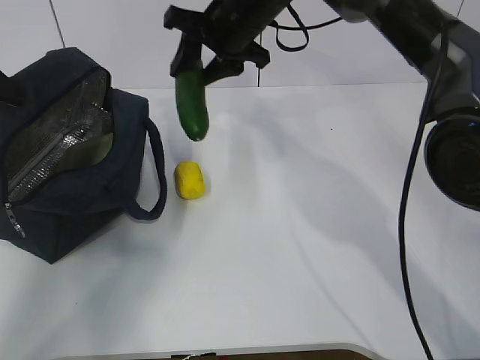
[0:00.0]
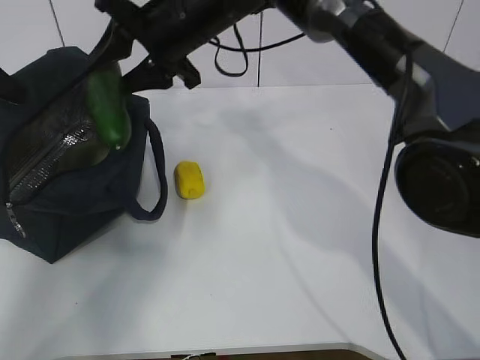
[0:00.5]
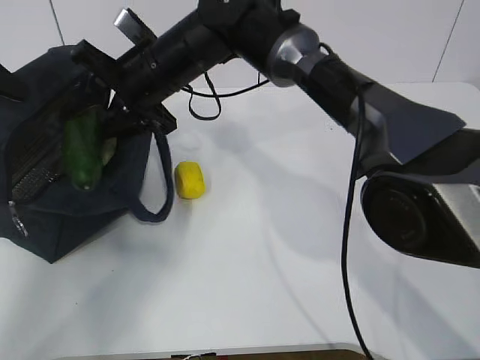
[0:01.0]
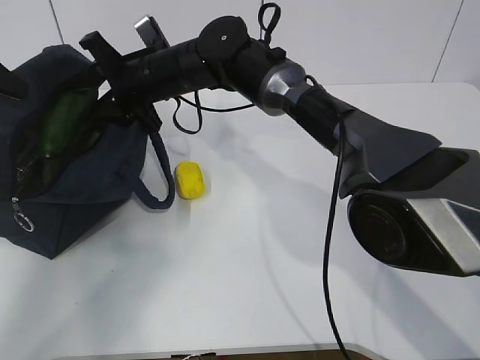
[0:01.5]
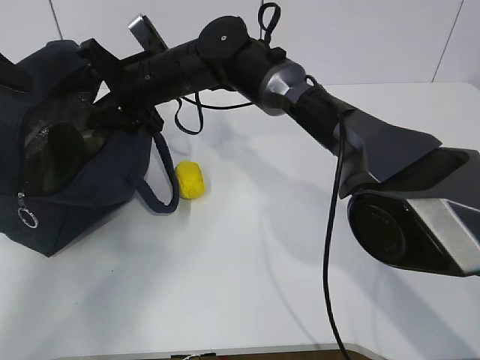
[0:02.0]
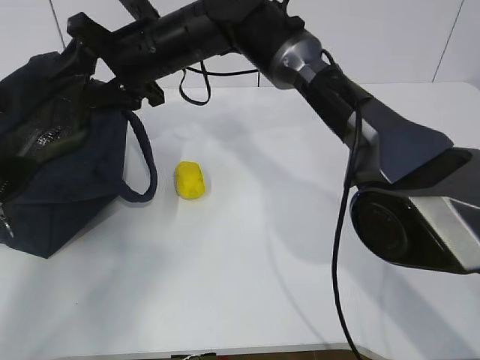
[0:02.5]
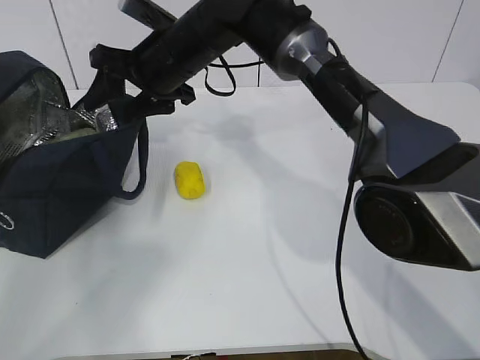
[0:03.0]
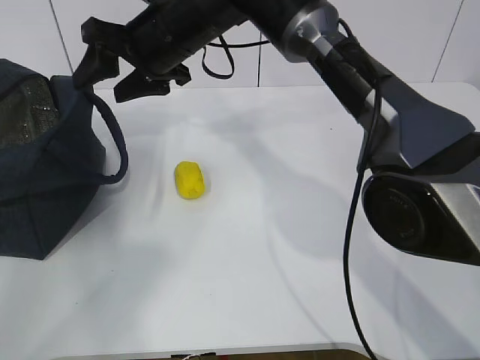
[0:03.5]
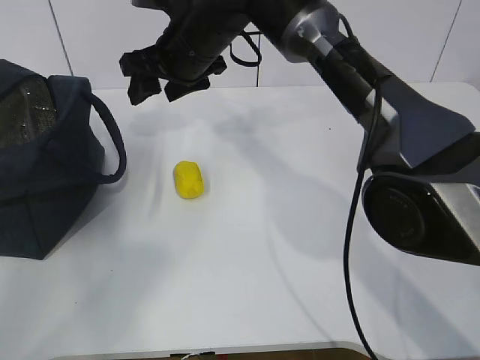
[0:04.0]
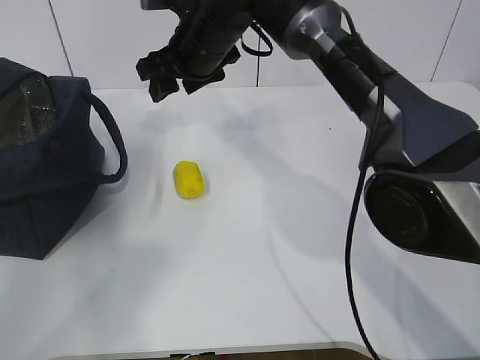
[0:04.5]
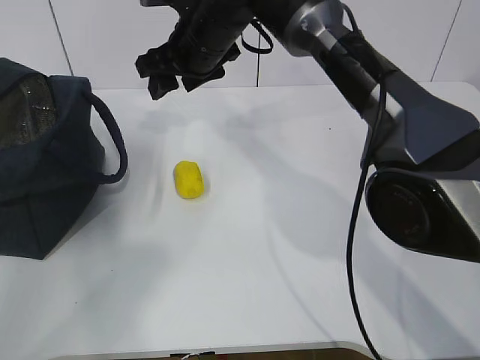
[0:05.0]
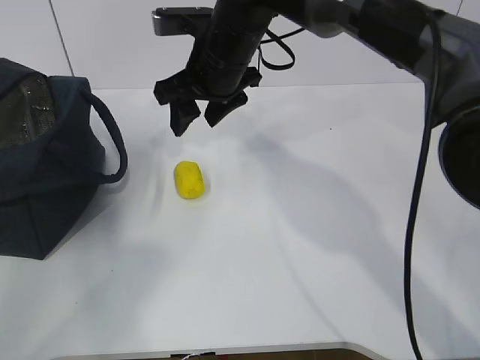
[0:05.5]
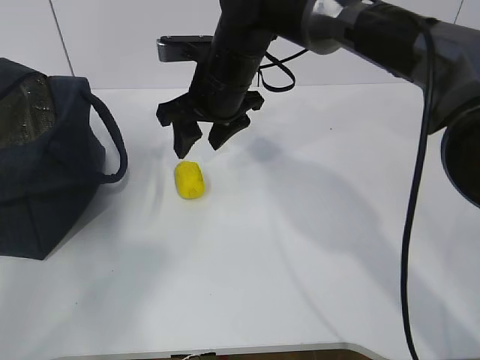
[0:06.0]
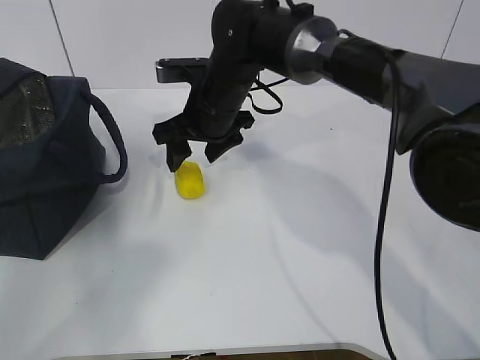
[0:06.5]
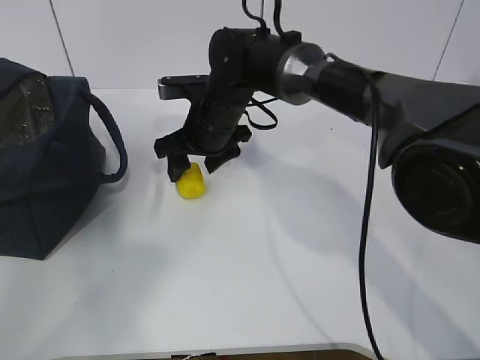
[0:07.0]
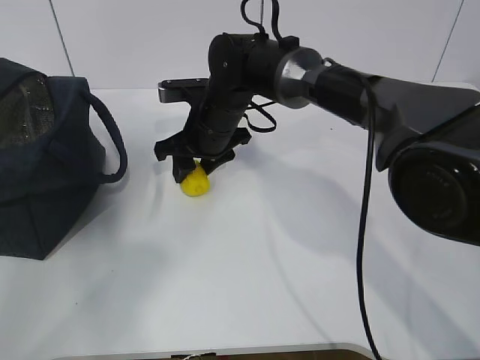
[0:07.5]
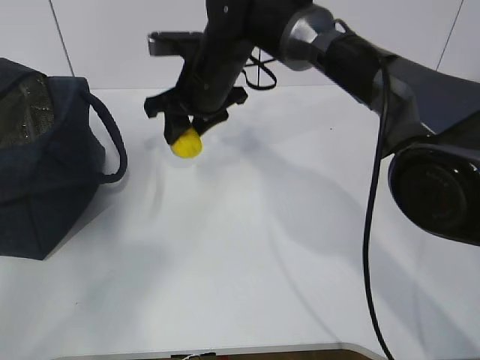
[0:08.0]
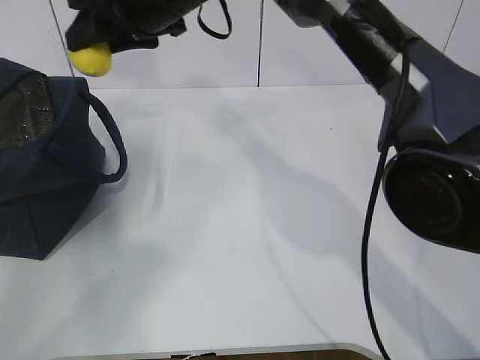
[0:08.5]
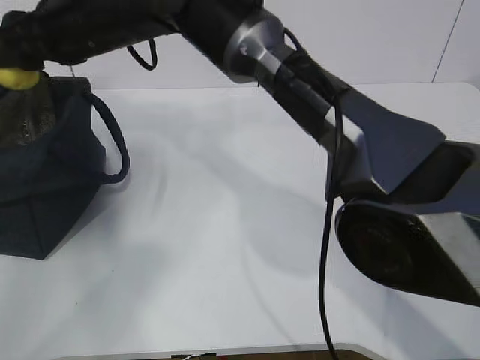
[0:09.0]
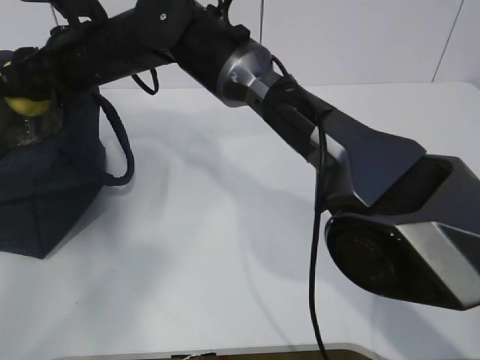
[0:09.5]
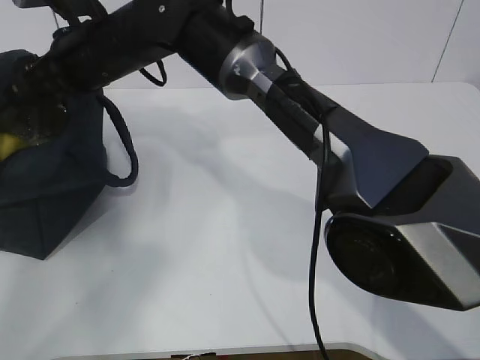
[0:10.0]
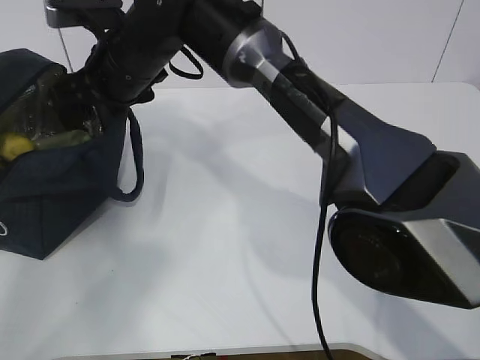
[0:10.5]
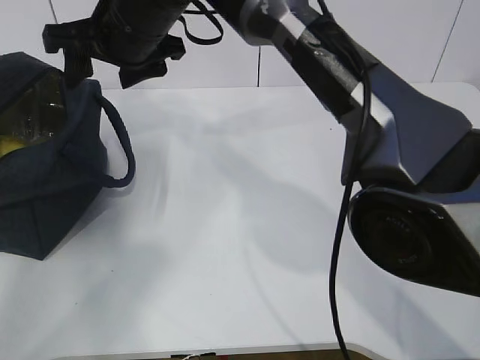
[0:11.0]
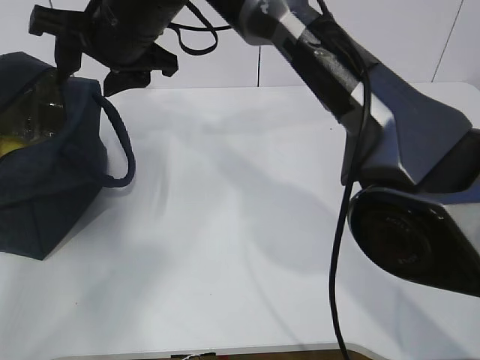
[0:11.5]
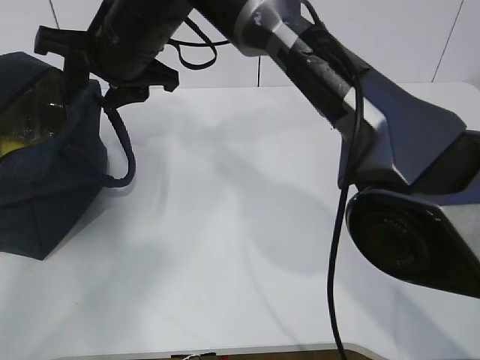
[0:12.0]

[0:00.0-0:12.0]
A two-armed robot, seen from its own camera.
Step, 0.0 to 3.0 s: Grab the lemon with your right hand.
Step, 5.5 to 7.0 s: Grab the lunch bag with your right hand.
Step, 7.5 to 10.5 s: Move the lunch bag to the right.
0.0 to 2.0 s: The right gripper heads to the left and downward, covering some 15 cm.
2.0 to 4.0 s: The left gripper heads to the left, covering approximately 10 cm; the right gripper moves to the right, some 5 cm.
8.0 to 10.0 s: The right gripper moves to the left, approximately 10 cm, and opens.

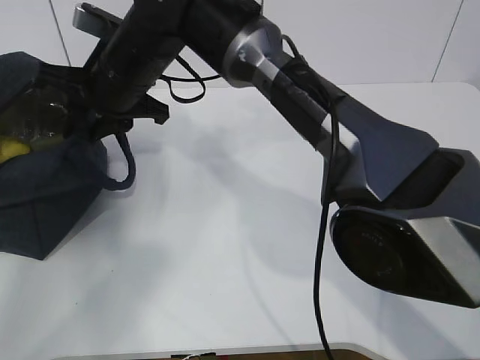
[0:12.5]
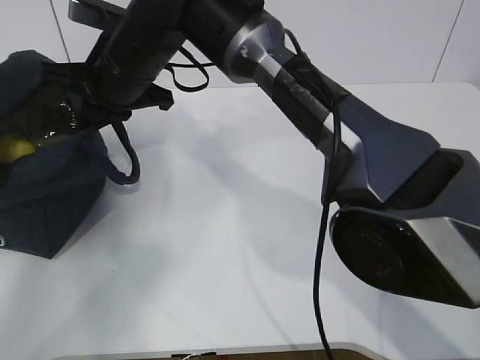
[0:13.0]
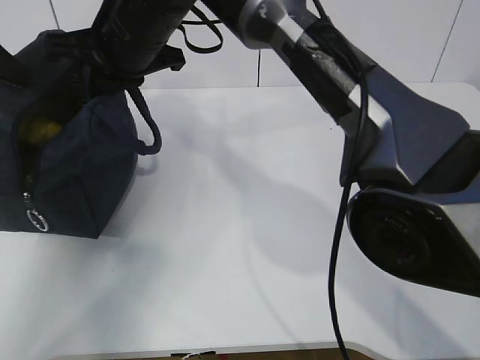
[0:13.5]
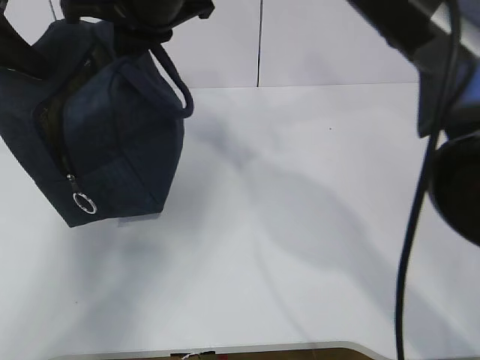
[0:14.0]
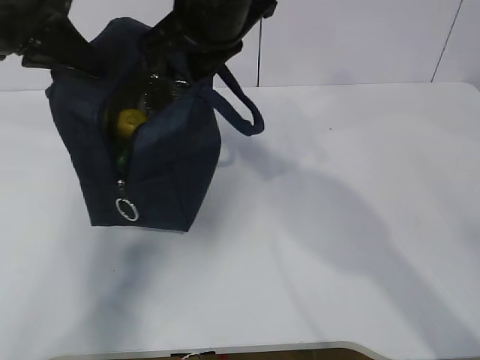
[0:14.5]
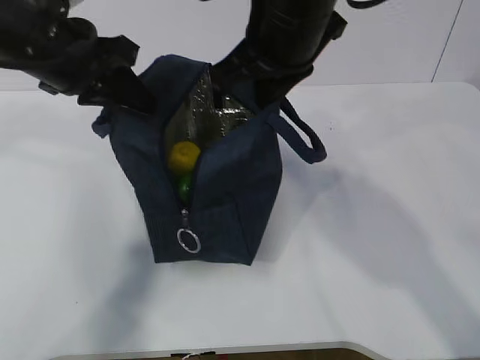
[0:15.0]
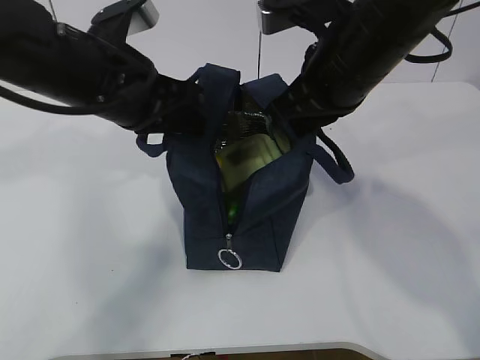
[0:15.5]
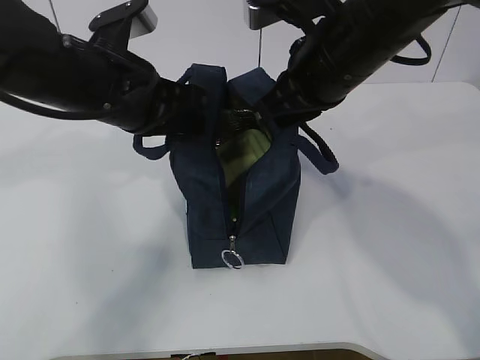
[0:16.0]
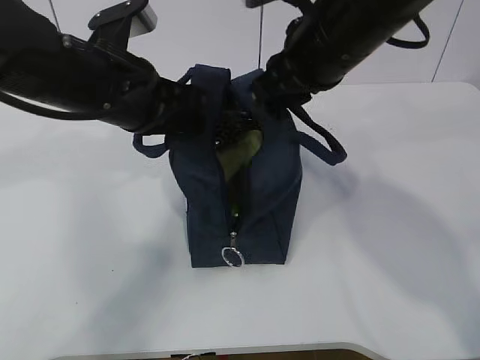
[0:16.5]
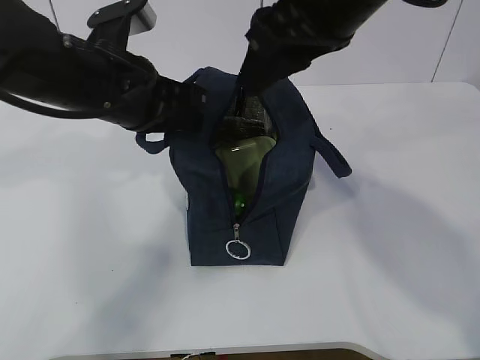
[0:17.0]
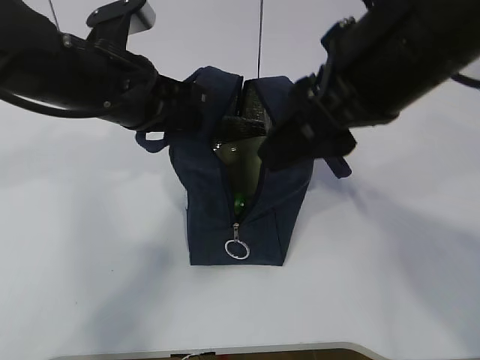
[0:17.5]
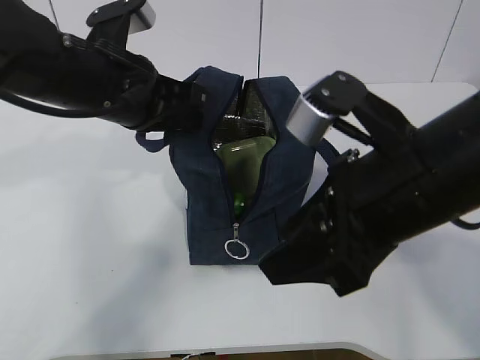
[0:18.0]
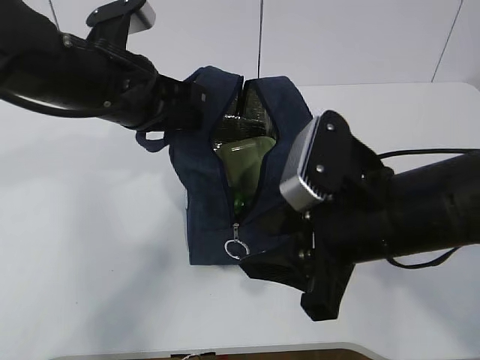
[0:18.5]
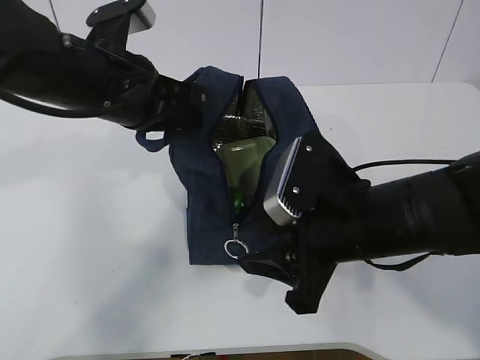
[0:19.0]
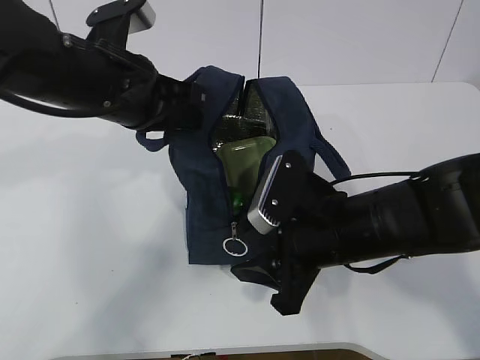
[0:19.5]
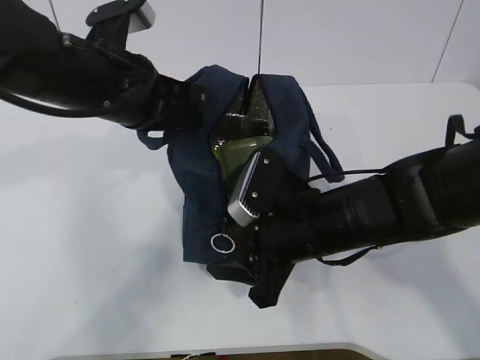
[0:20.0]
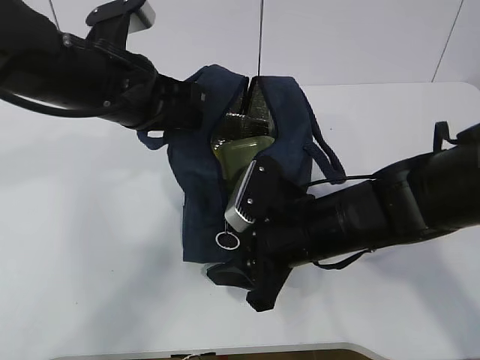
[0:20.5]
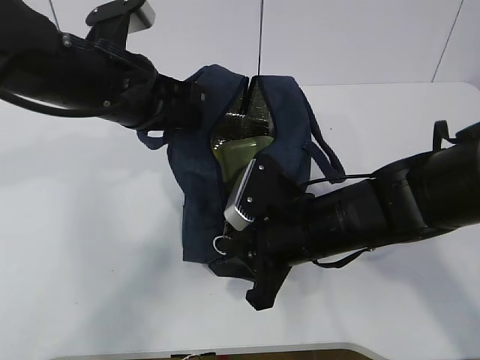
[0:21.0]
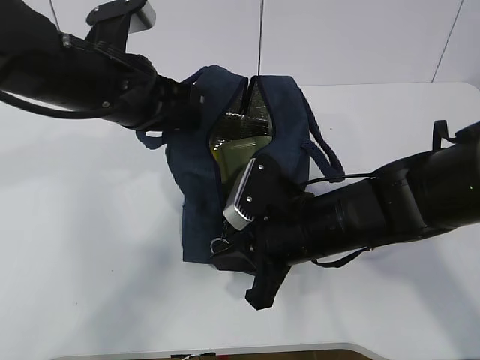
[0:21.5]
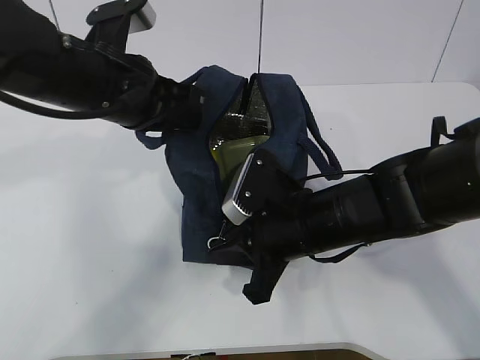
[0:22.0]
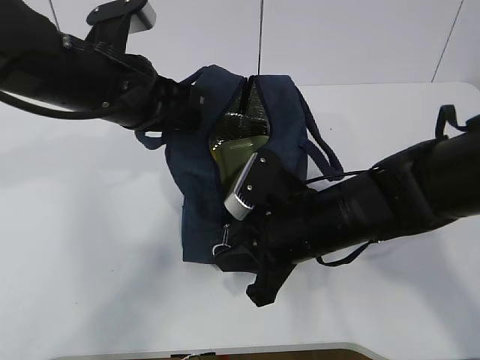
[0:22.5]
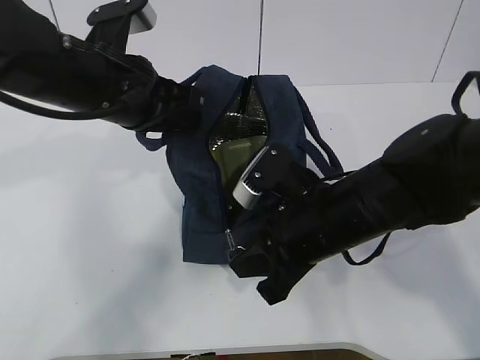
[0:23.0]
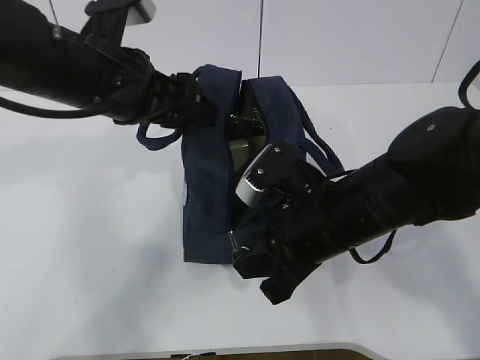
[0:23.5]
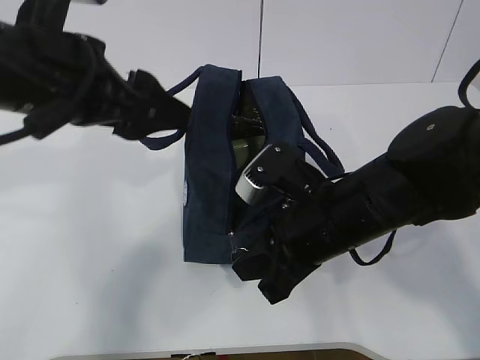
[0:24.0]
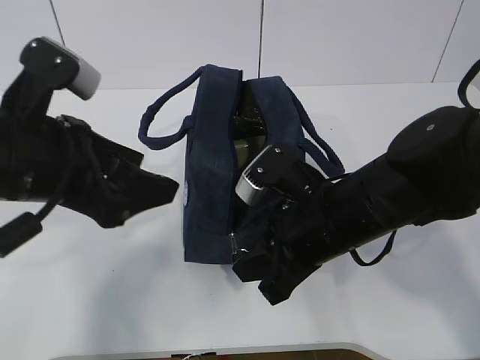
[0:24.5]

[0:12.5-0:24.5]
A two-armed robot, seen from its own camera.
Step, 12.5 to 16.0 s: Move the lunch bag to the left.
12.5 to 14.5 s: The right gripper heads to the right and upward, covering about 15 cm, and closes up; the left gripper moves to the right, about 15 cm.
14.5 to 16.5 s: The left gripper shifts approximately 15 cm to the right and downward. The right gripper is displaced to the right by about 10 cm.
16.5 to 18.5 s: The right gripper goes approximately 15 cm backward and downward, and opens its fingers.
18.5 to 20.5 s: The right gripper heads downward and forward, covering approximately 10 cm.
20.5 to 22.5 s: The right gripper closes.
22.5 to 24.5 s: The left gripper travels backward by approximately 10 cm, and opens its fingers.

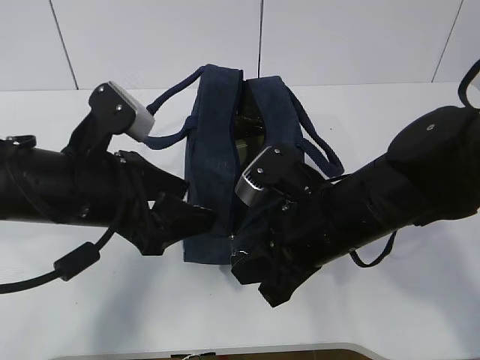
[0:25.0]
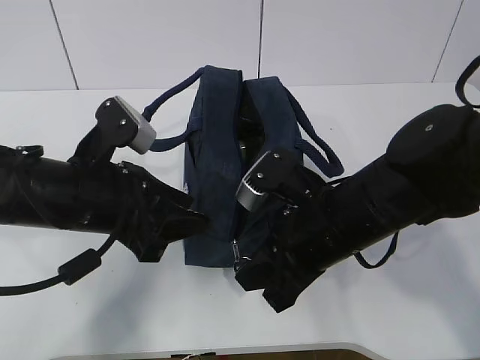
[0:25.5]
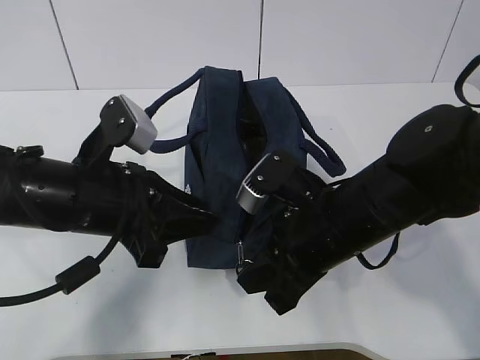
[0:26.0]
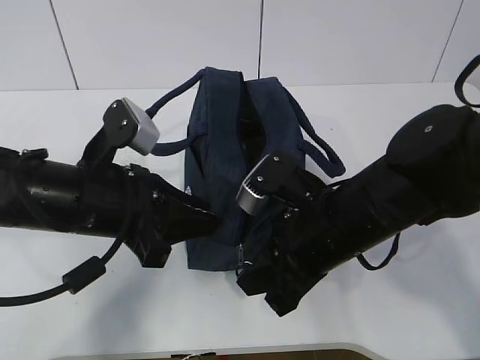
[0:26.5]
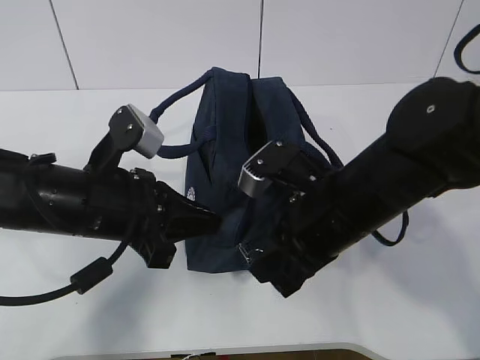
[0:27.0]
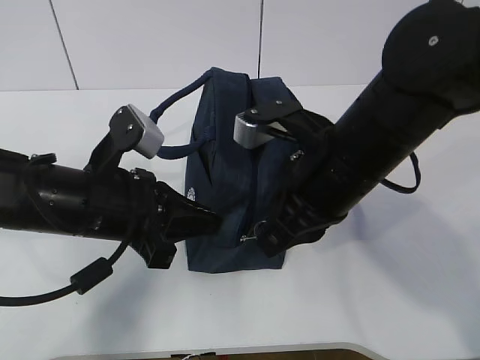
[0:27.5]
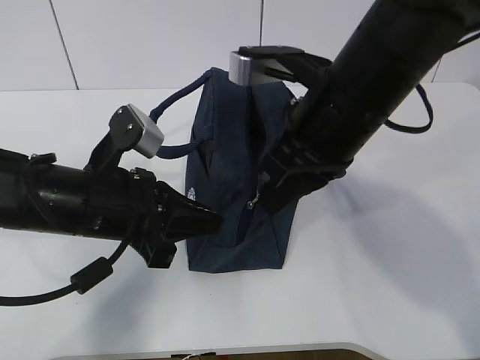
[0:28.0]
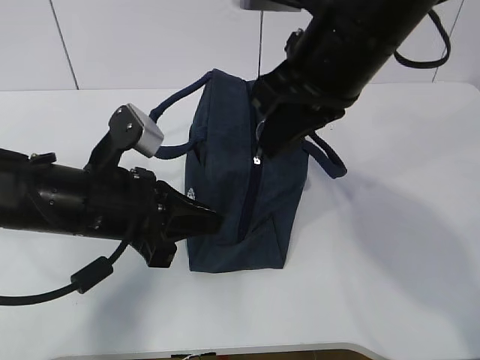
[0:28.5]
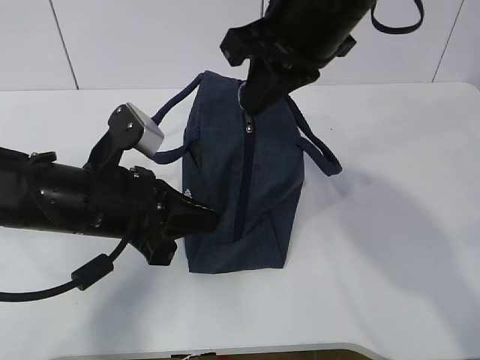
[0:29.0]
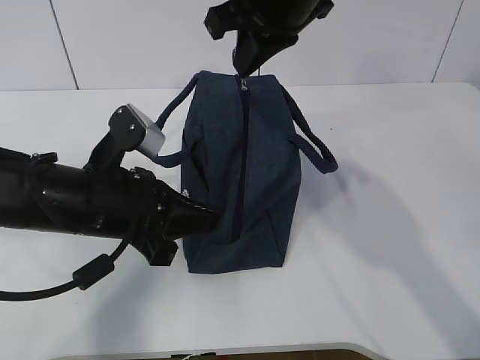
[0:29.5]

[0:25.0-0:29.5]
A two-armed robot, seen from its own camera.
25.0 to 27.0 s: The left gripper closes up.
27.0 to 29.5 s: The right gripper heads upward and forward, covering approximately 20 cm.
